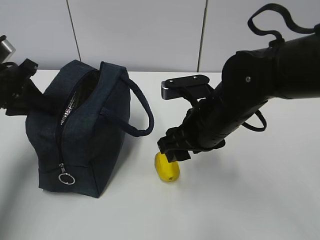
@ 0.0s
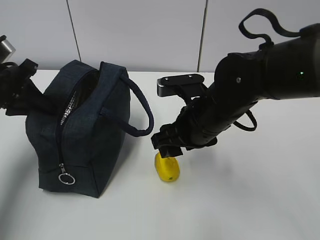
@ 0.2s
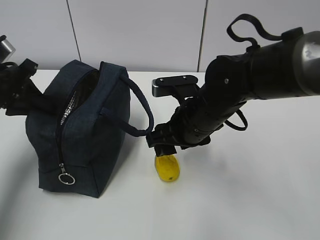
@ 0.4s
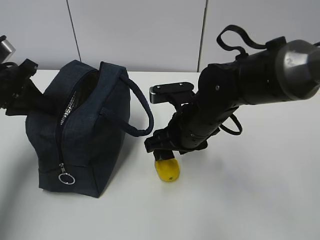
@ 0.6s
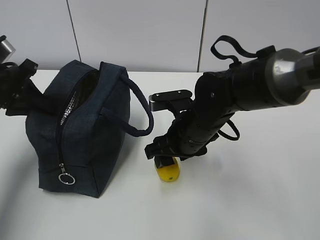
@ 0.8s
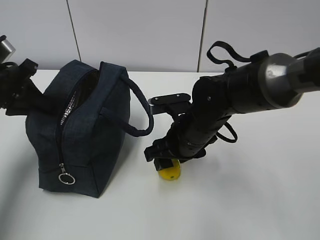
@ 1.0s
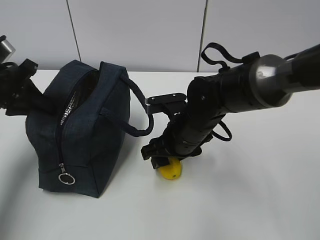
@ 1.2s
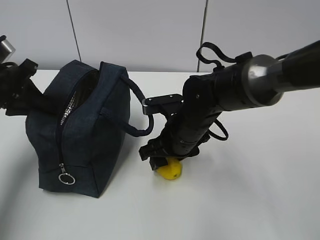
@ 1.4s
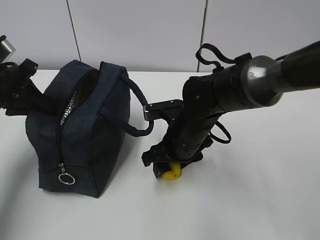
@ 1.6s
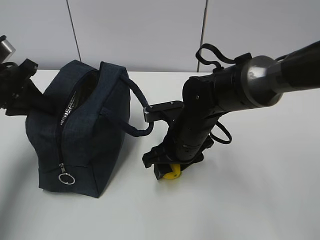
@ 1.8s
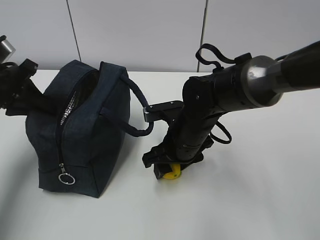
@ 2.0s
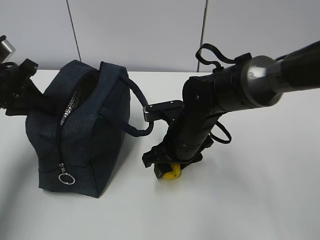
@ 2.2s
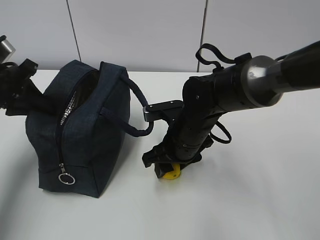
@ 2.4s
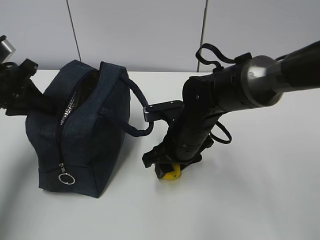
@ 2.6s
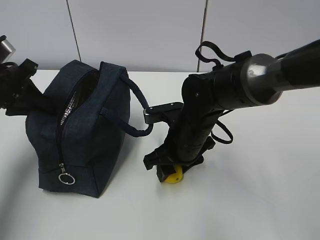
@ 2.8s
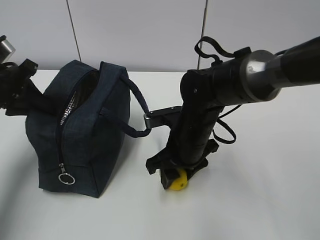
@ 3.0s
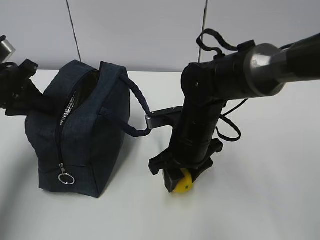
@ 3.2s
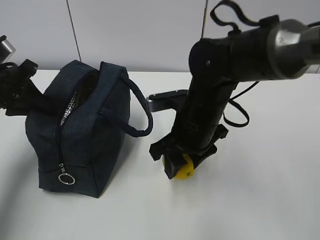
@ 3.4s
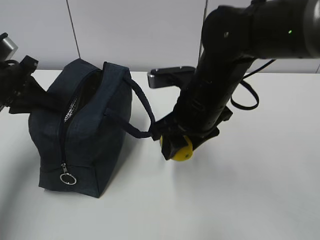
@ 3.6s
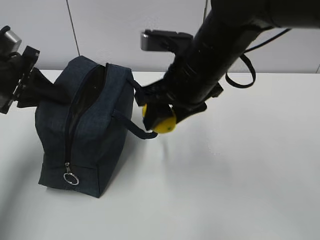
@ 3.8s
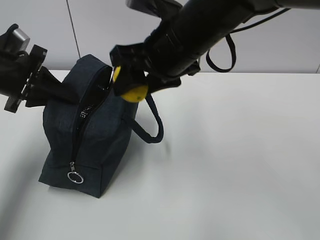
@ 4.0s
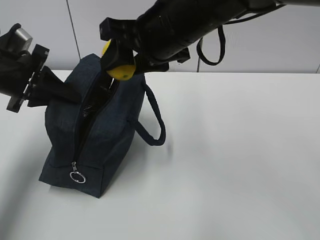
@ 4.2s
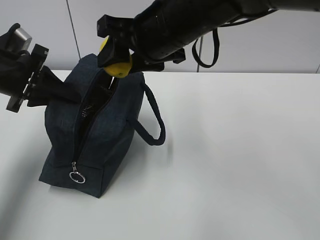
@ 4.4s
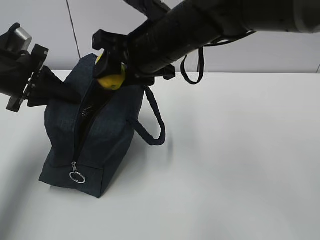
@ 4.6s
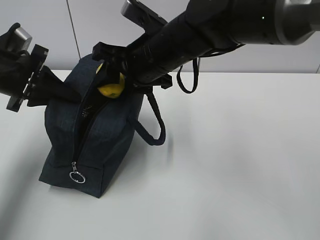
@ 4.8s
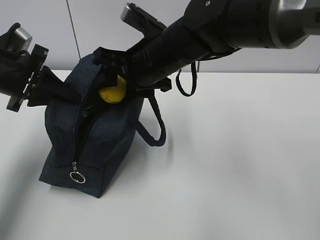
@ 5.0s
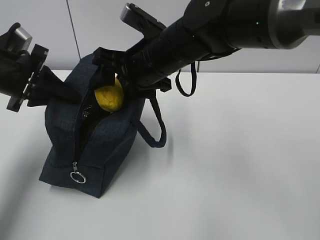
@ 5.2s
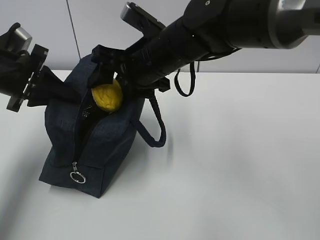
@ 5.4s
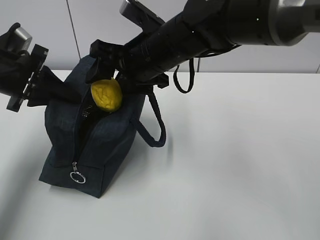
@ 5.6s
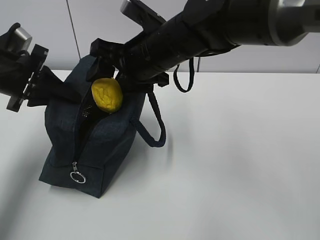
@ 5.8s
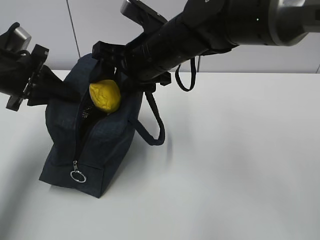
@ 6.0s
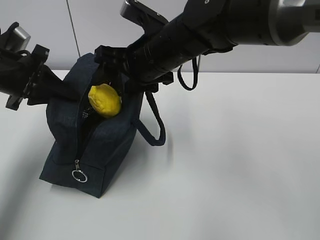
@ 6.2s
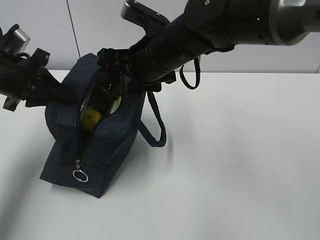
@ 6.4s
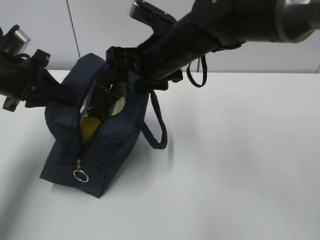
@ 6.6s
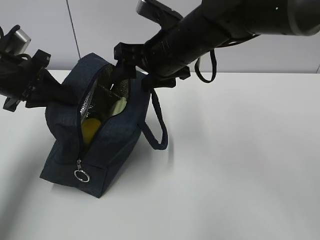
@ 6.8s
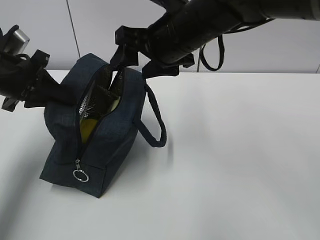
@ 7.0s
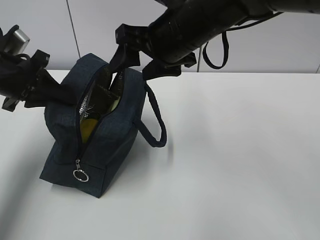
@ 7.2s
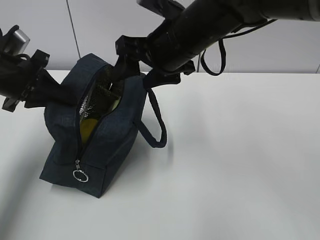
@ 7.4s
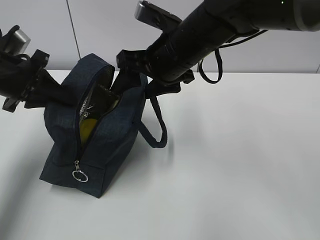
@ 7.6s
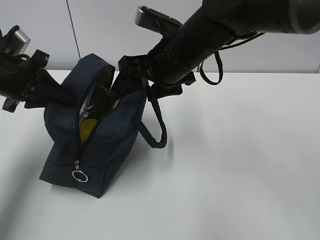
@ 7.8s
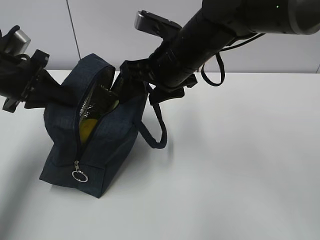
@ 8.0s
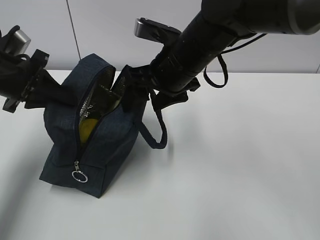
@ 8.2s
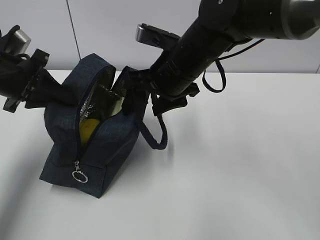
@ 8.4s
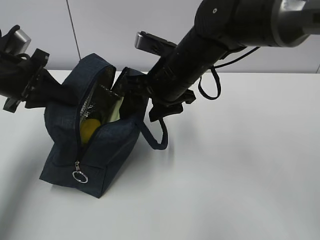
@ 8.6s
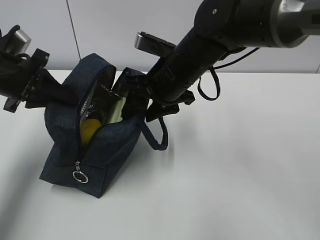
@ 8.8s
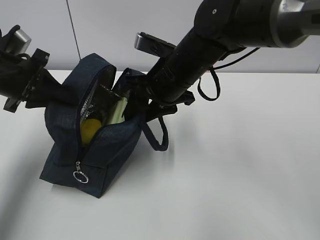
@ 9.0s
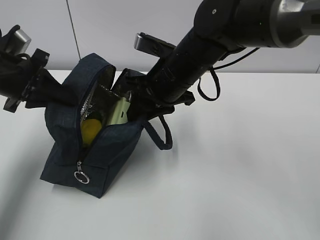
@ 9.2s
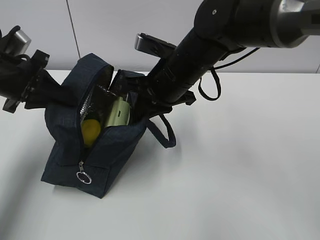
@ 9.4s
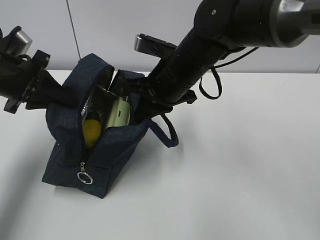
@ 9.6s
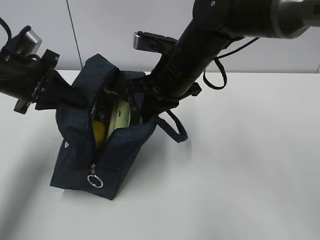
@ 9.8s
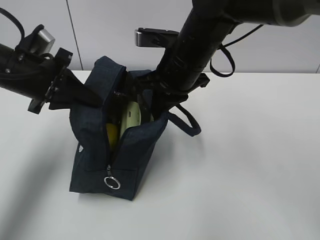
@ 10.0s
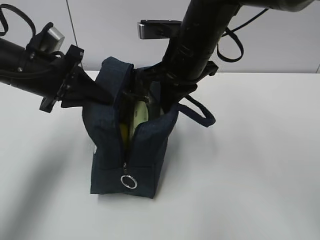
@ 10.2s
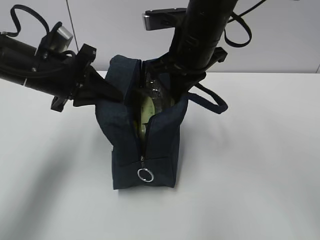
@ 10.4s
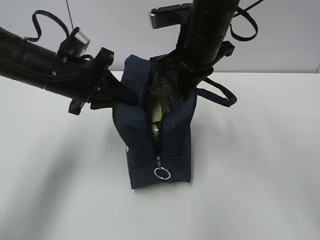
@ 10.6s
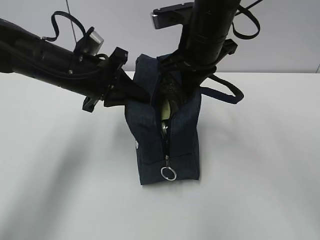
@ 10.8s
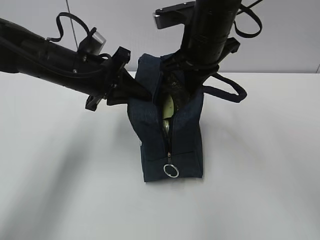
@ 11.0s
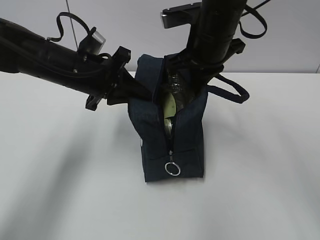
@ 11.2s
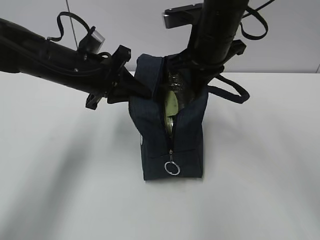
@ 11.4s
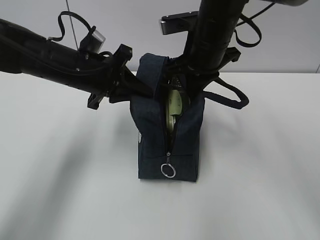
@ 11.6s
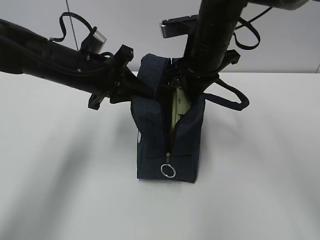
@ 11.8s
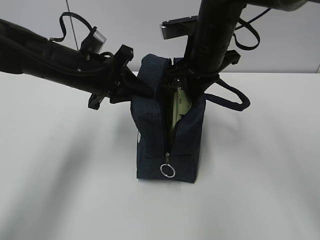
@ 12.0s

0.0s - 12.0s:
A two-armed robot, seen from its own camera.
Step, 0.0s - 2.6s: Move the lunch bag to the right.
0.0s - 1.6s: The right gripper travels downward by about 5 cm.
1.6s - 3.0s: The grippers stay close to where they were, moving slightly.
3.0s - 4.4s: The right gripper shifts some 20 cm upward.
4.4s - 6.0s: The right gripper ends up about 5 cm from where it was.
6.0s - 7.6s: There are only small adjustments of the grippers.
7.6s - 9.0s: The right gripper closes up.
9.0s - 10.4s: The left gripper heads to the right, covering approximately 5 cm; the right gripper goes approximately 5 cm upward, and closes up.
10.4s - 12.0s: The left gripper is displaced to the right by roughly 5 cm.

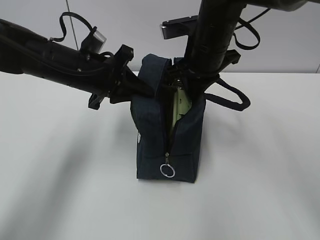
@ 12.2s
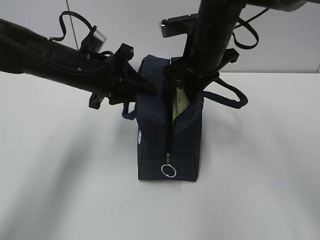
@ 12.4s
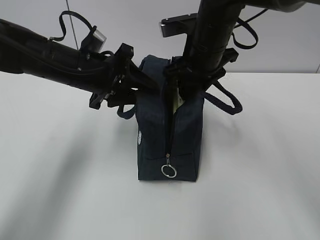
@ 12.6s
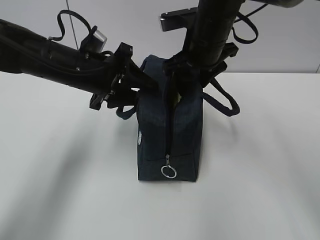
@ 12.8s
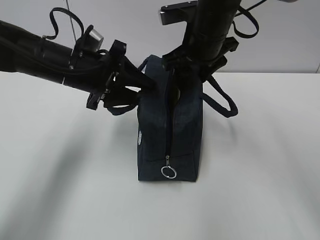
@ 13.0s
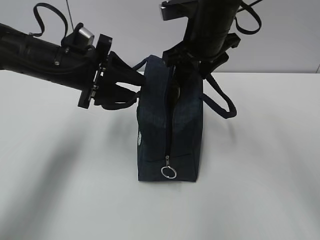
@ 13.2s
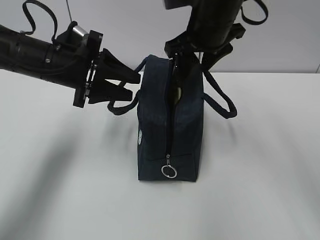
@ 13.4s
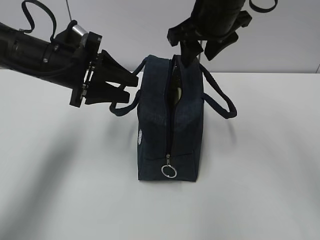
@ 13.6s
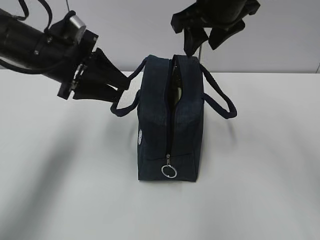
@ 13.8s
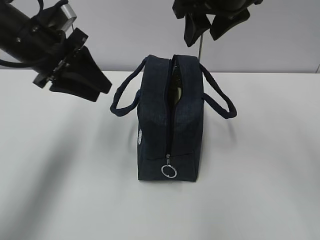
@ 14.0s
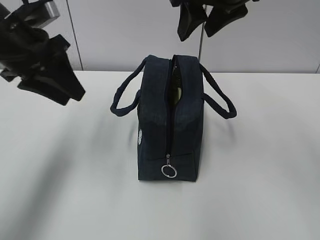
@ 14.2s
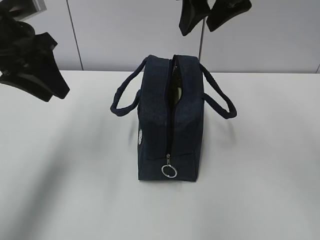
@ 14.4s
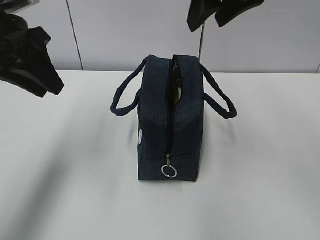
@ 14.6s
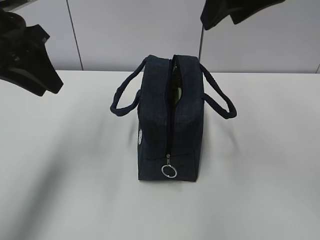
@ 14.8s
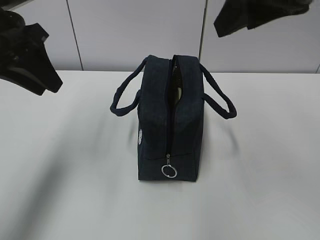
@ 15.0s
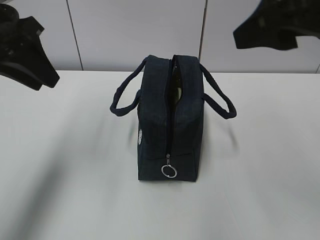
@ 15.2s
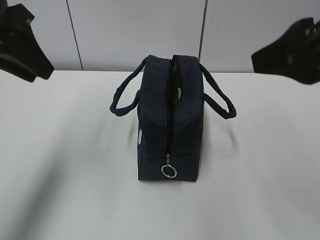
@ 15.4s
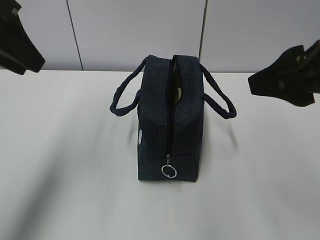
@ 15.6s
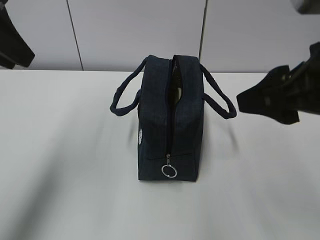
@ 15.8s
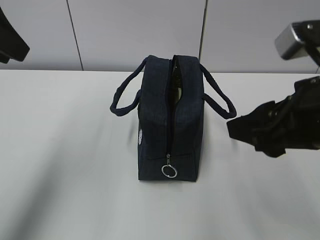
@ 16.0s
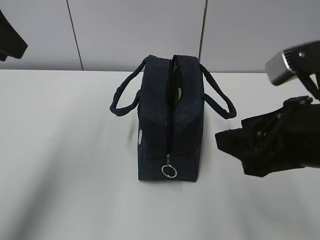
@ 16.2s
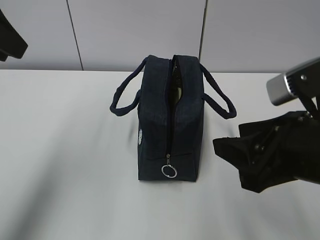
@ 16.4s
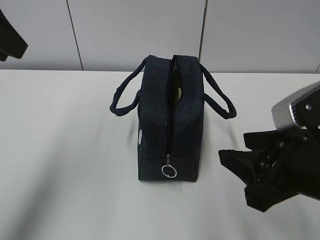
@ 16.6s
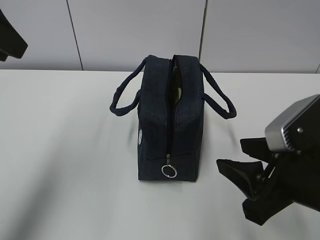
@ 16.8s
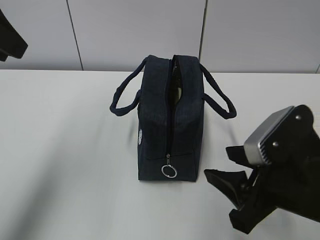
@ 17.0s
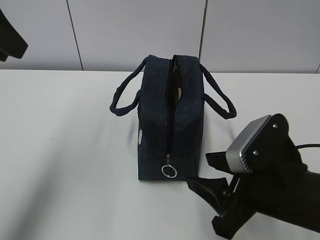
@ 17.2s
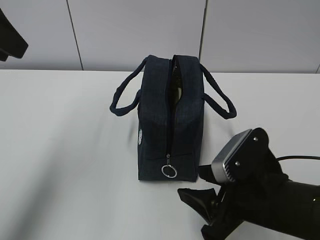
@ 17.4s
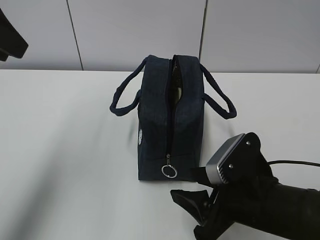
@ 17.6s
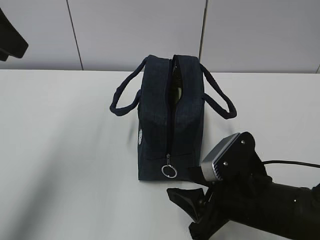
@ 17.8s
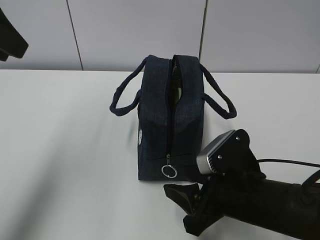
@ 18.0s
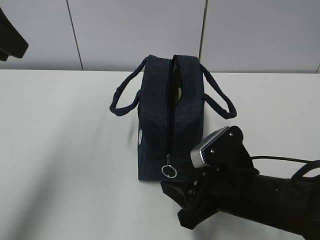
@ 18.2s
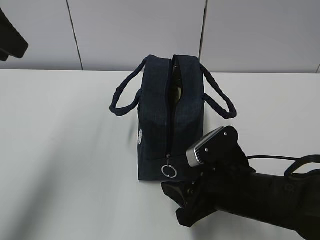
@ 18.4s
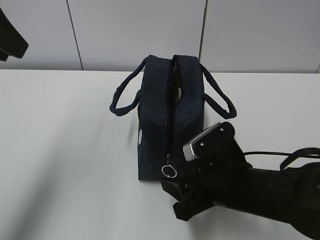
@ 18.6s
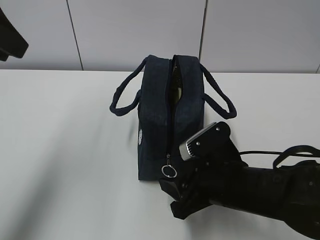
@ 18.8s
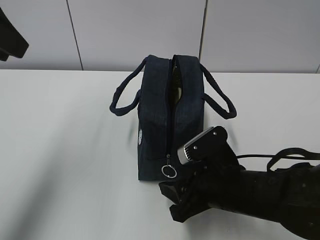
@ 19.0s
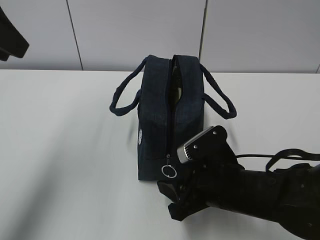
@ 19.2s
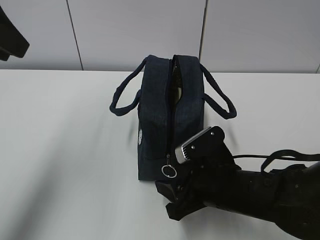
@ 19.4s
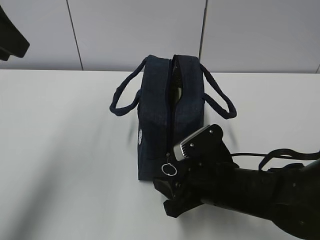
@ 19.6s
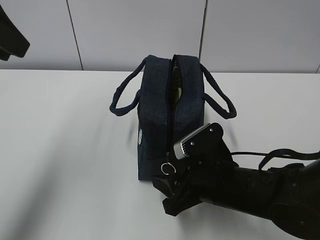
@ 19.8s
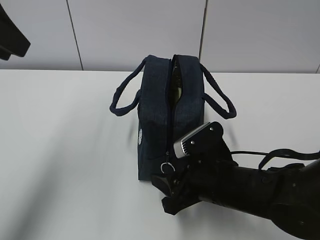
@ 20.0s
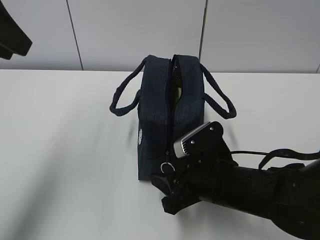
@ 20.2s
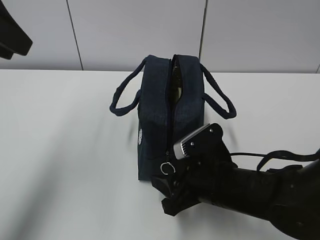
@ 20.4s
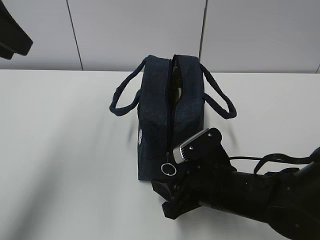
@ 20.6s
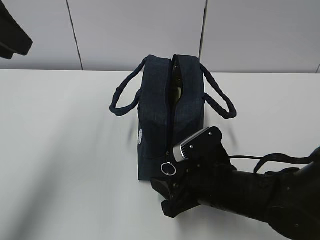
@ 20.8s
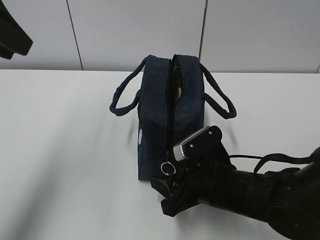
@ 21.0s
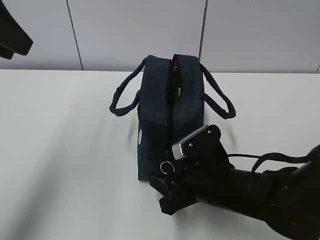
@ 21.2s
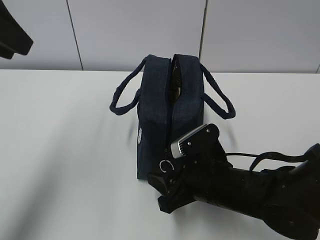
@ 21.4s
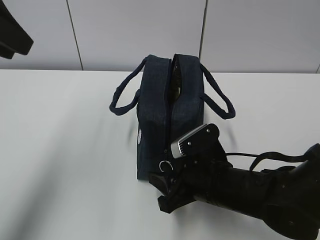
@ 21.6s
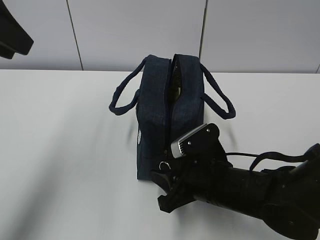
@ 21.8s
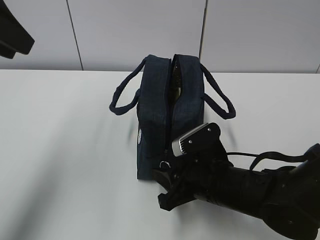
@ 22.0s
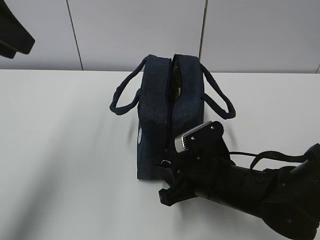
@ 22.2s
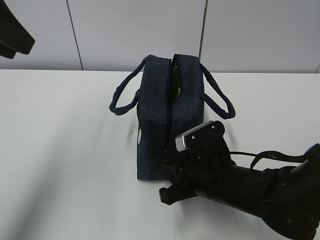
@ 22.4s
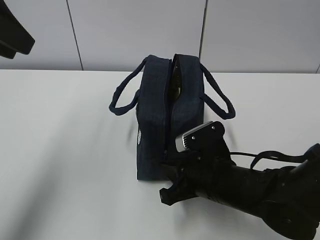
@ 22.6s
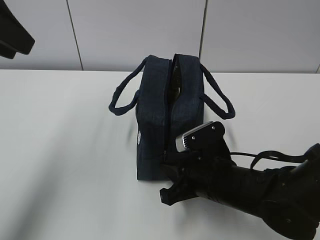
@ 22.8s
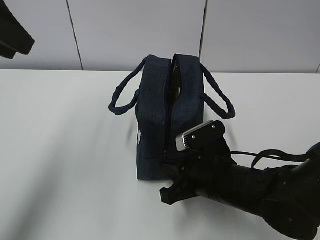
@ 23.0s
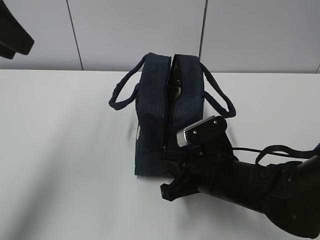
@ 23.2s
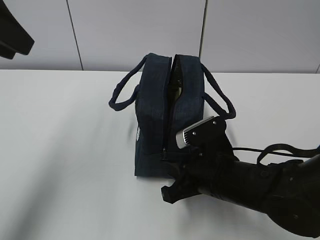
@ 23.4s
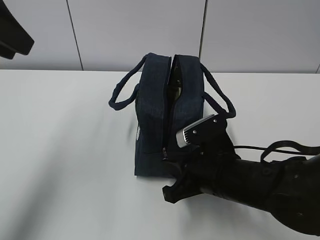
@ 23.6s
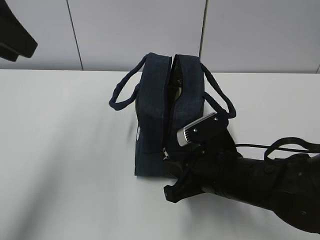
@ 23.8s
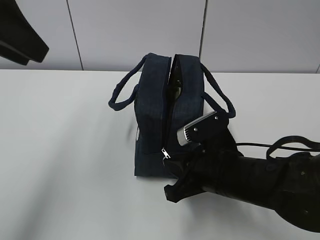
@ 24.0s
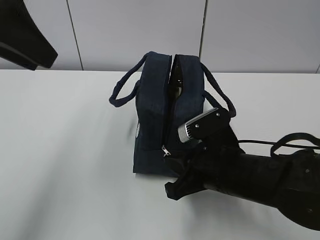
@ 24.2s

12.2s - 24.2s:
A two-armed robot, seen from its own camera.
Step, 12.2s - 18.4s: Grab the lunch bag with your left hand.
12.2s - 13.8s: The right gripper moves upward, some 10 cm, and opens. The left gripper moves roughly 5 cm, and opens up.
13.8s - 15.2s: The left gripper is displaced upward and backward by approximately 10 cm; the right gripper travels backward and to the right by approximately 15 cm.
15.2s - 16.6s: The left gripper heads upward, covering some 5 cm, while the right gripper is displaced downward by roughly 15 cm.
16.6s - 18.2s: The right gripper goes roughly 10 cm downward and to the left.
18.2s - 19.8s: The grippers move only a little.
19.8s - 21.2s: Both grippers stay about where they are.
21.2s - 22.6s: The right gripper closes up.
22.6s - 24.2s: There are only small adjustments of the grippers.
